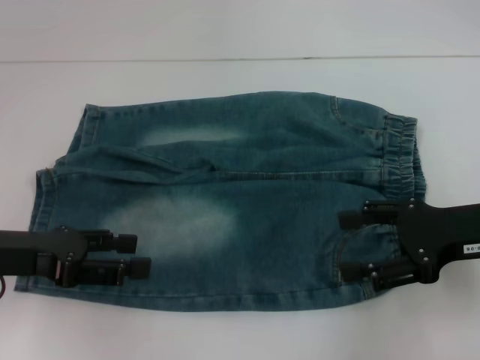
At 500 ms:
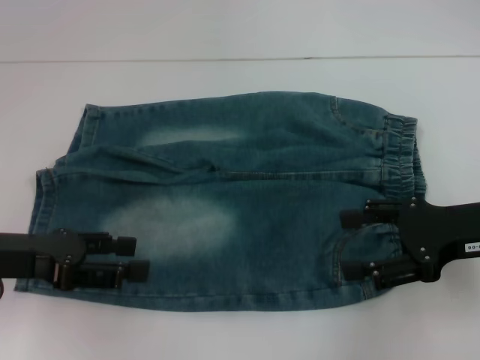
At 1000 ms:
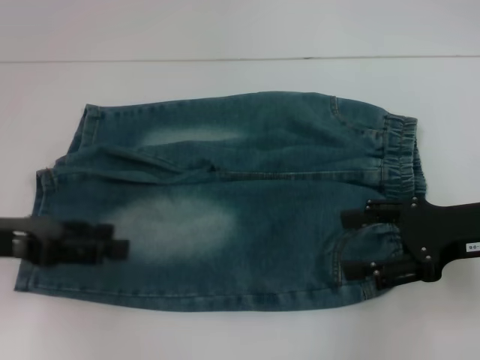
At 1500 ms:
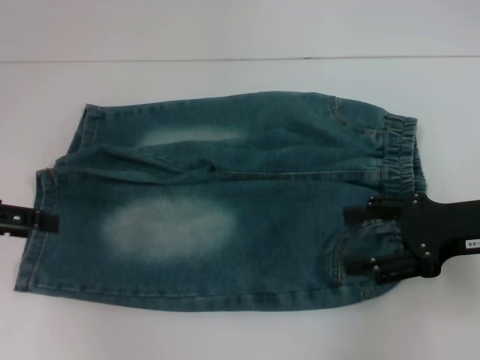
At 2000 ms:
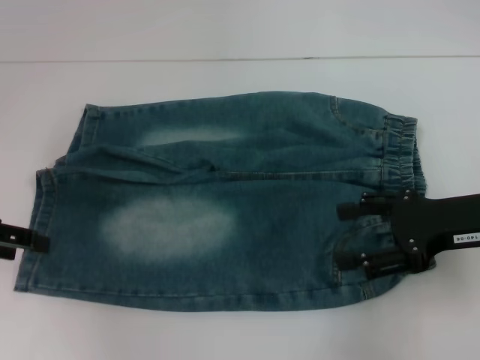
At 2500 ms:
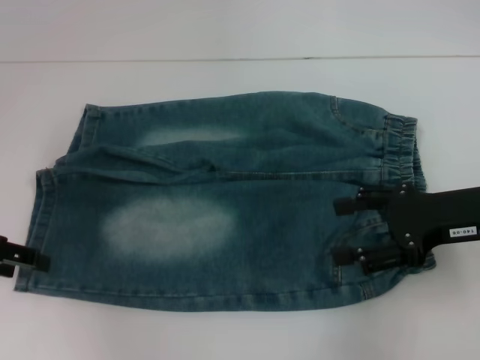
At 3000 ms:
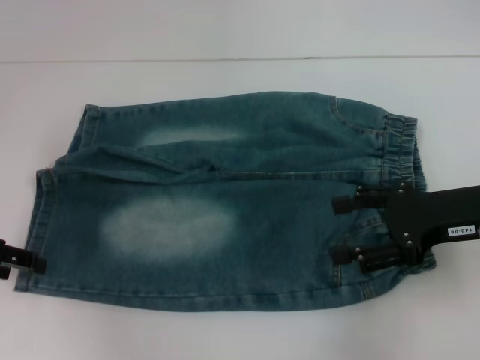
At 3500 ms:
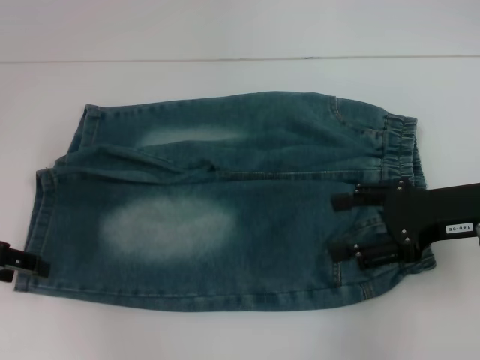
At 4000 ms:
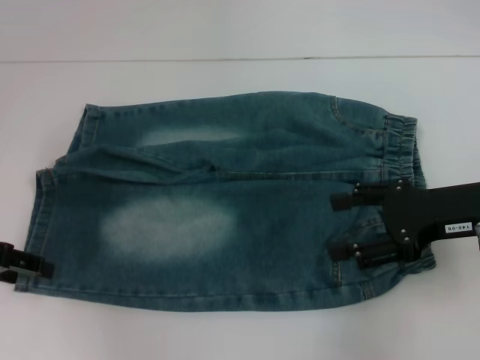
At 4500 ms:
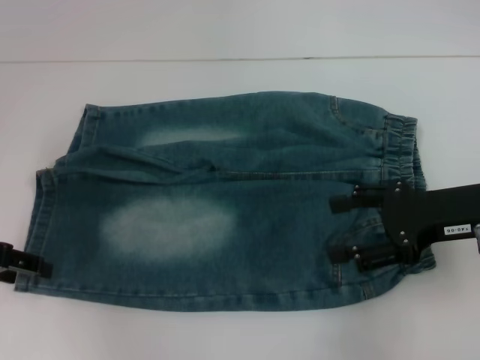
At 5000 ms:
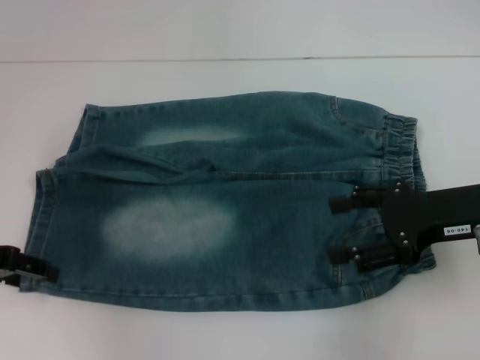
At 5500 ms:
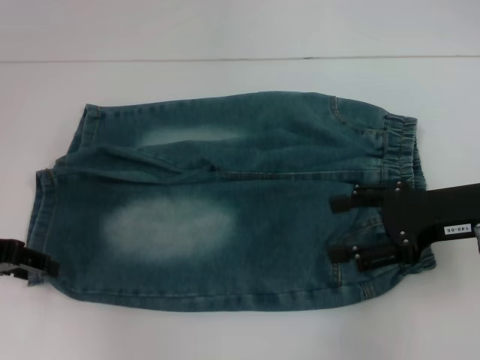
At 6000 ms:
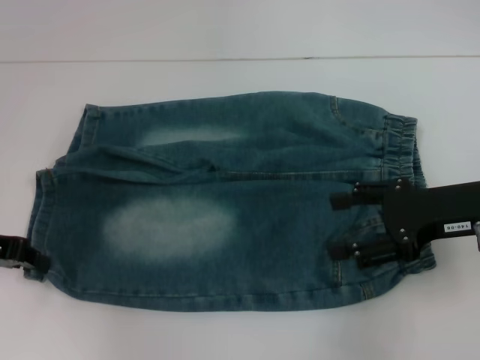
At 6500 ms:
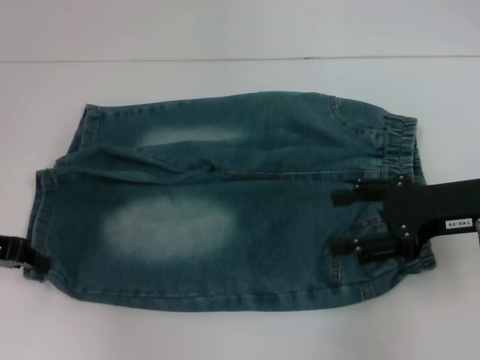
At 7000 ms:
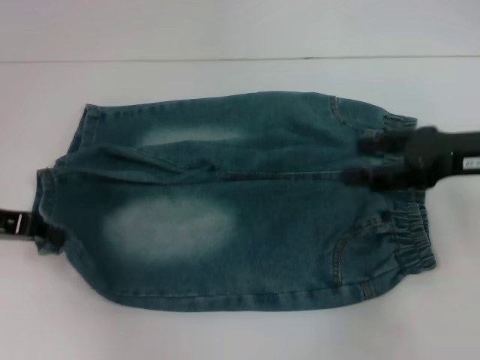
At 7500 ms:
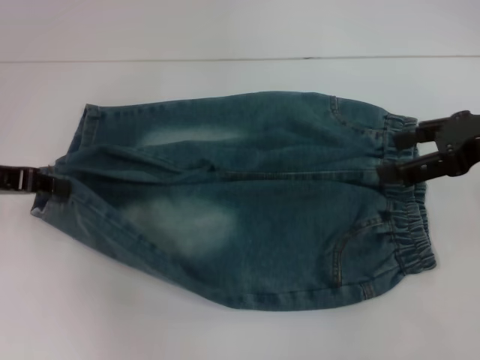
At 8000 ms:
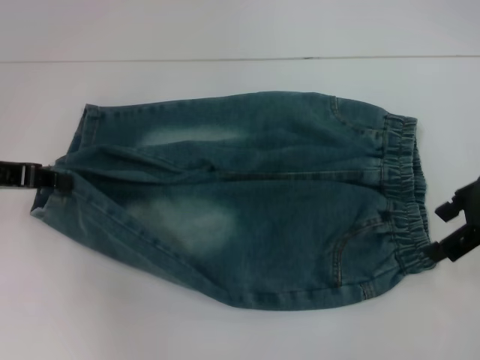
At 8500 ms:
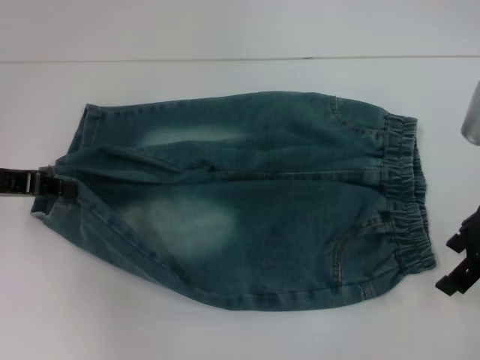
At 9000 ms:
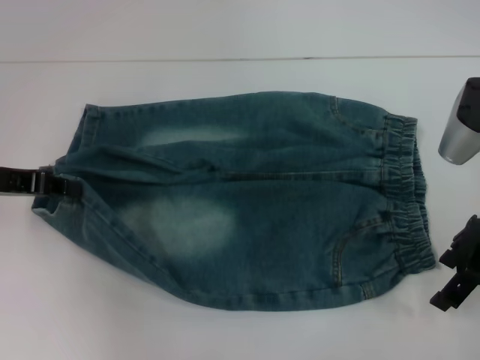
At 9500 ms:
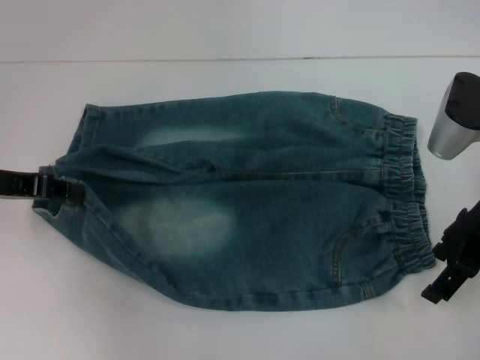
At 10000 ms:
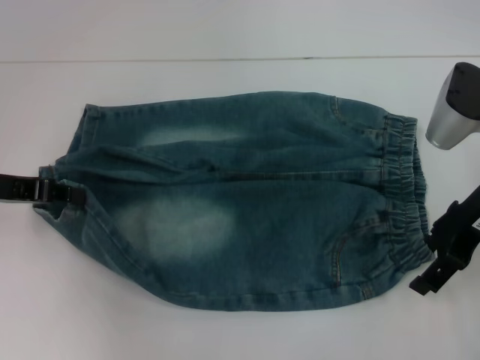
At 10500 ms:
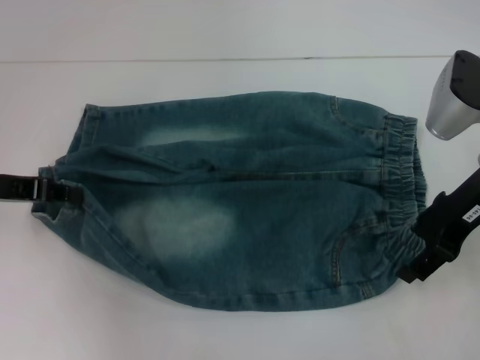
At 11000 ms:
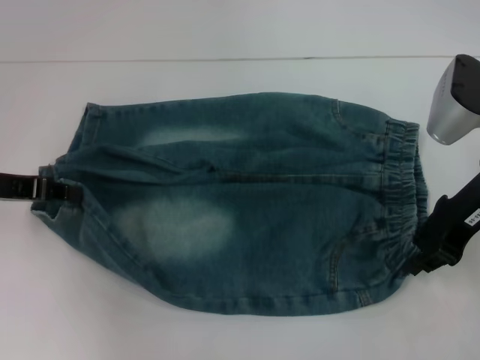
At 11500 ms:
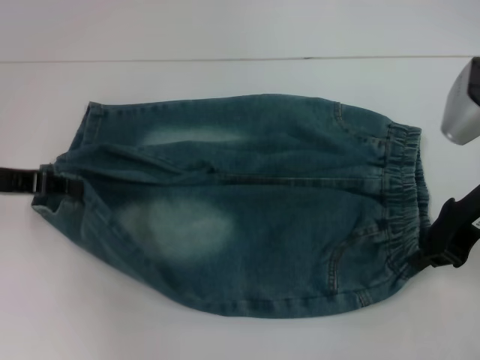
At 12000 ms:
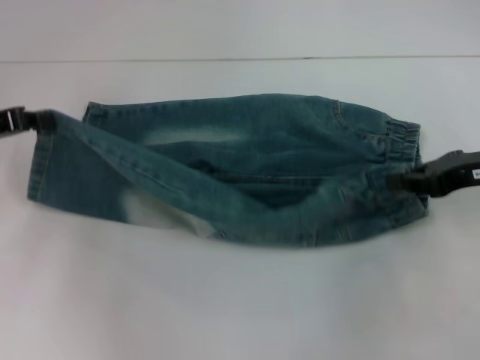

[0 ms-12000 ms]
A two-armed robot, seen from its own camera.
Step, 0 ms to 6500 ms: Grab the lower left pant leg with your left hand.
Step, 7000 ms to 11000 ms: Hold the lower right waistband with your right hand.
0 ms to 2000 ms: The left gripper moves to the left, roughly 5 cm.
2000 ms to 4000 ms: The grippers move only a little.
4000 ms to 6000 ms: The left gripper closes.
6000 ms to 8000 ms: The right gripper moves upward, some 5 cm.
8000 ms to 10000 ms: The right gripper moves about 5 cm.
10000 ms to 12000 ms: The right gripper is displaced to the right by roughly 5 cm, and closes up.

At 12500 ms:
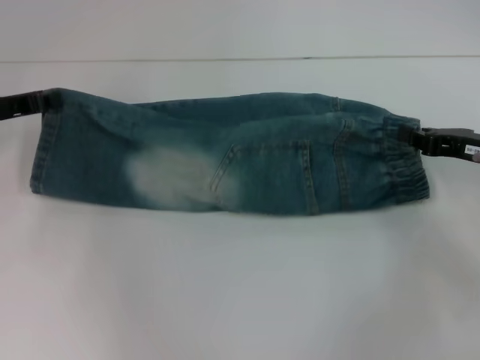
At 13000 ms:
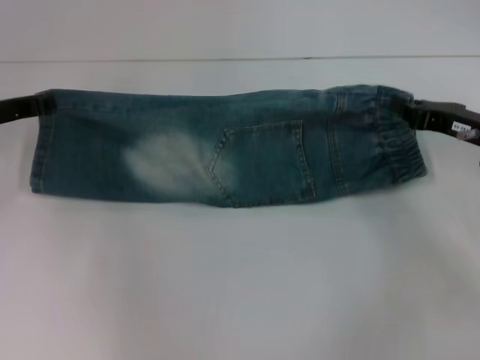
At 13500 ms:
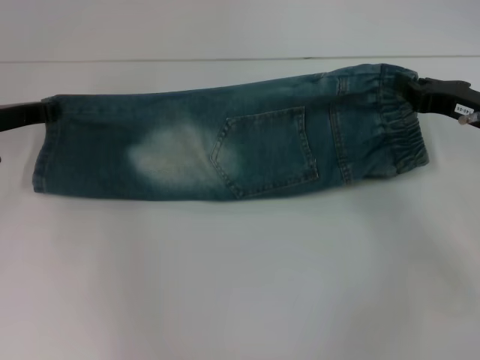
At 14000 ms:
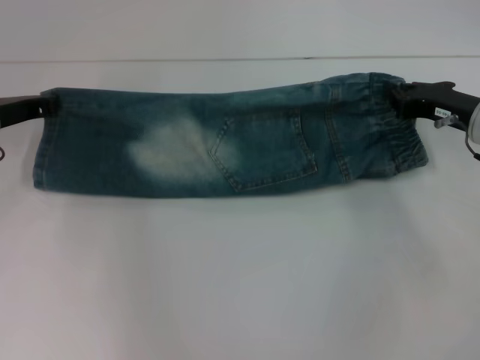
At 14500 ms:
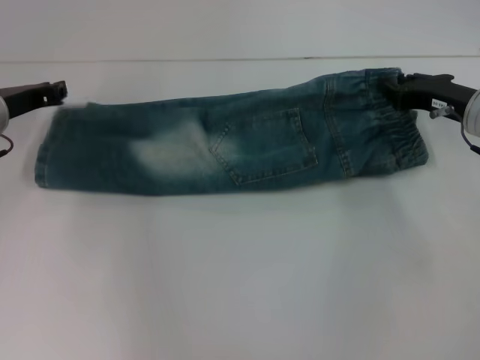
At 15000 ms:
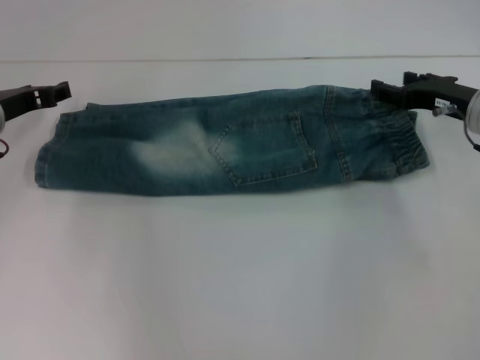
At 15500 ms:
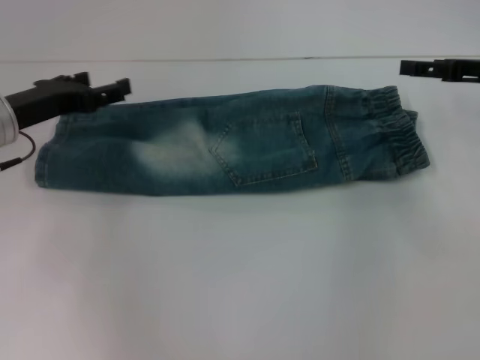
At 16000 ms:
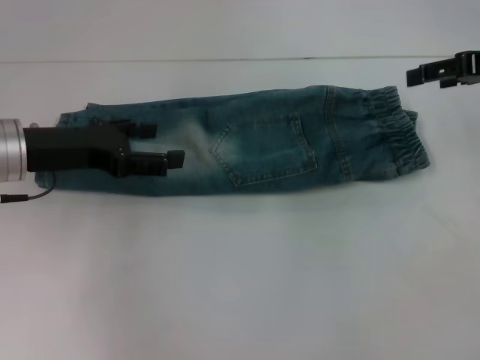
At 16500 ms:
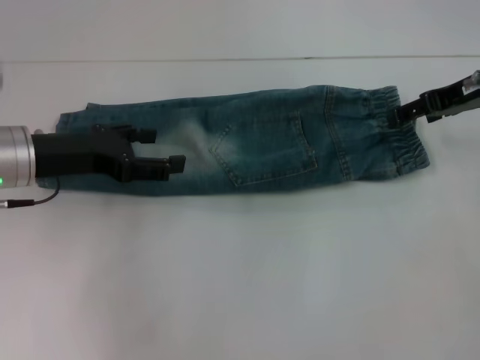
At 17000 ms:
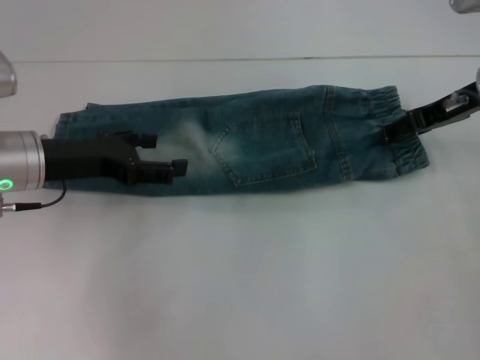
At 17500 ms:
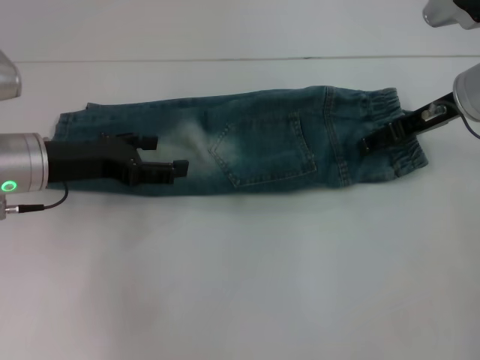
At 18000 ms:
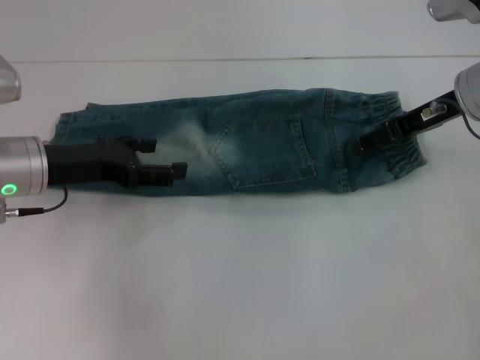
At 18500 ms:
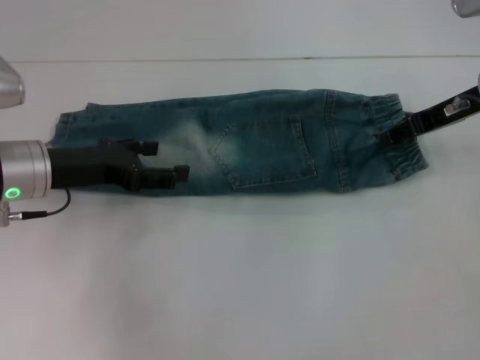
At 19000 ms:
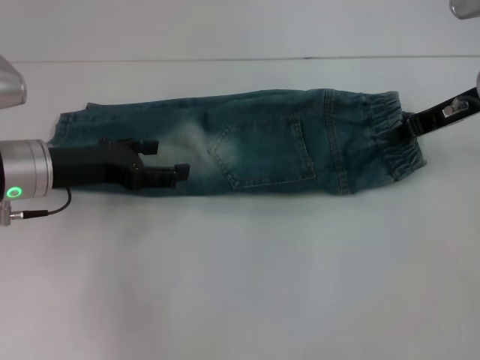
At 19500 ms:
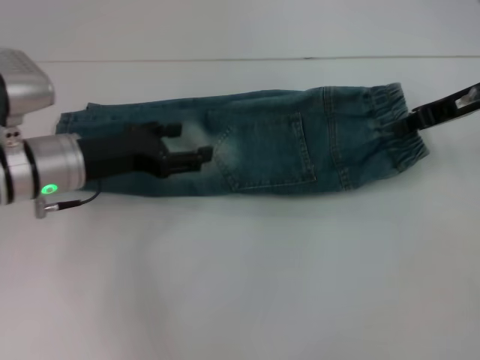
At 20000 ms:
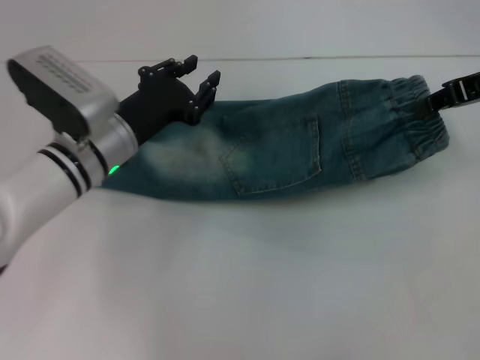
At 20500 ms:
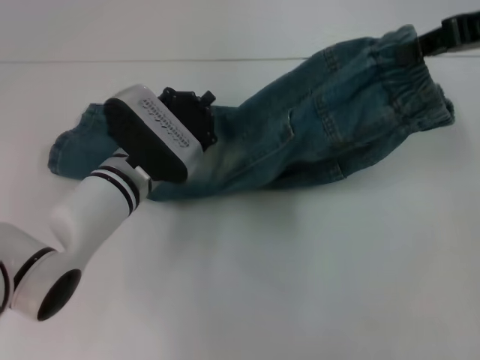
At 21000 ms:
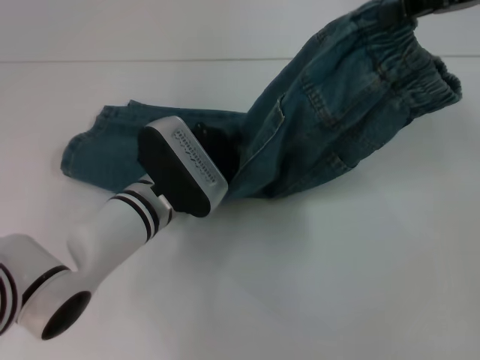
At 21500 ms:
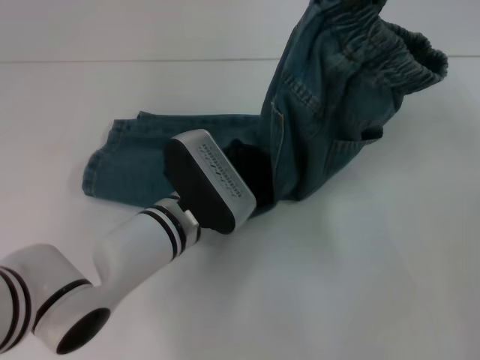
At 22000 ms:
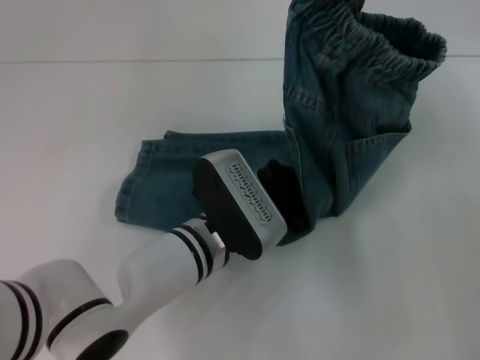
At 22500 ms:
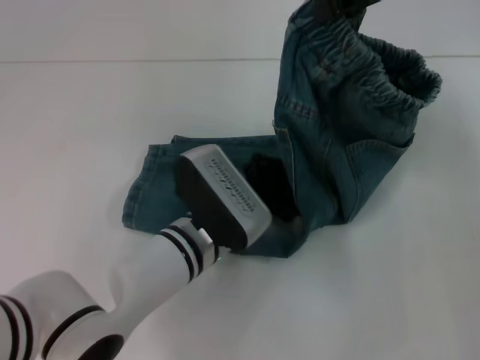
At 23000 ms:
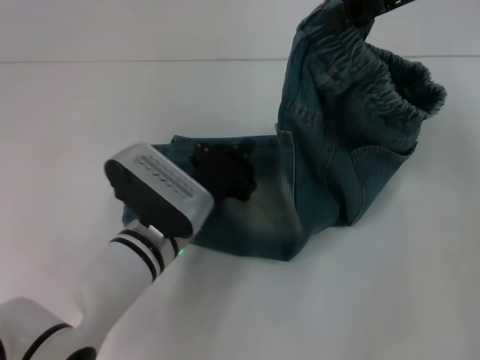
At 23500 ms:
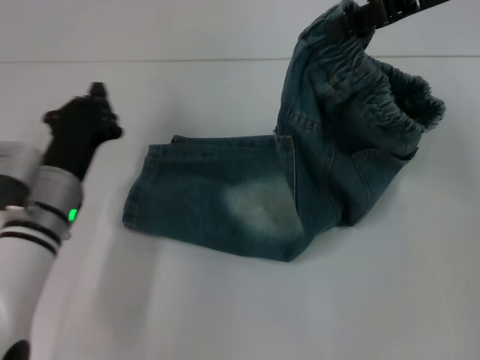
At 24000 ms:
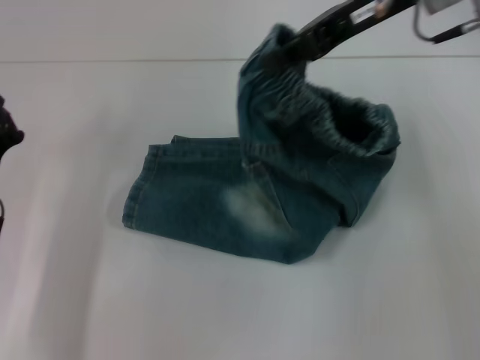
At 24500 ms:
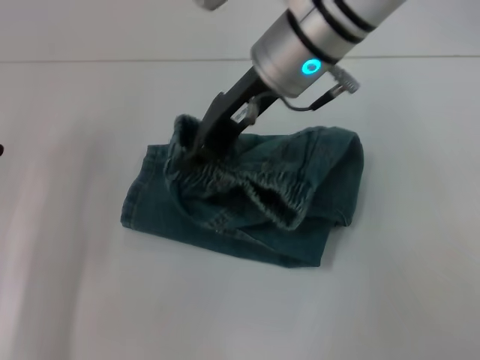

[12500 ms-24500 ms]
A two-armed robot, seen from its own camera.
Step, 12500 ms to 14500 ms: Fold upward with your left hand.
Step, 15000 ms to 19000 ms: Grab the waistband with your right hand.
Step, 19500 ms to 22000 ms: Press the middle of the pants with your left hand.
12500 ms to 14500 ms: The right gripper shifts by roughly 5 cm.
14500 ms to 16500 ms: The left gripper goes about 5 cm backward, and opens its fingers; the right gripper moves upward, about 10 cm, and opens.
16500 ms to 18500 ms: The grippers stay close to where they were, moving slightly.
18500 ms to 20500 ms: The right gripper shifts roughly 10 cm upward, and closes up. The left gripper moves to the right and downward, some 15 cm, and closes.
20500 ms to 22500 ms: The left gripper moves to the right and backward, roughly 10 cm. Meanwhile the right gripper heads to the left, covering some 10 cm.
22500 ms to 24500 ms: The right gripper heads to the left and downward, covering some 20 cm, while the left gripper travels to the left by roughly 25 cm.

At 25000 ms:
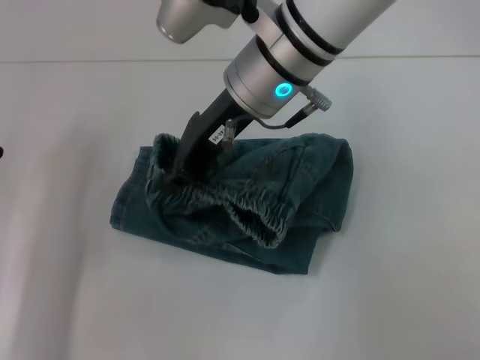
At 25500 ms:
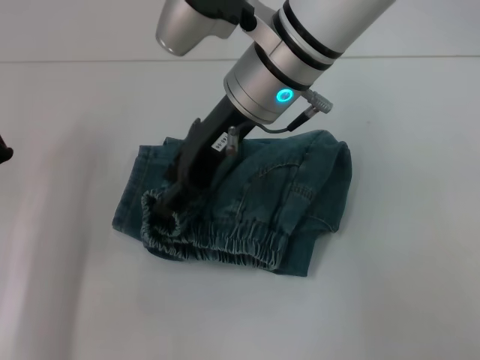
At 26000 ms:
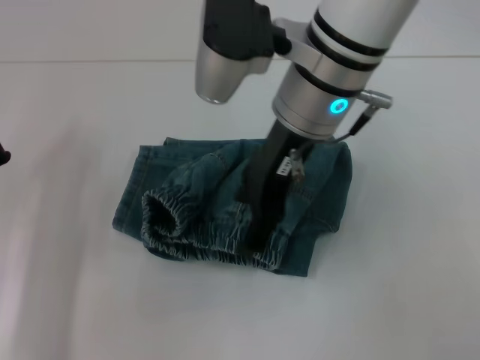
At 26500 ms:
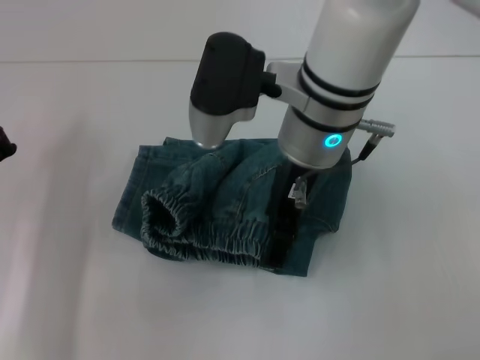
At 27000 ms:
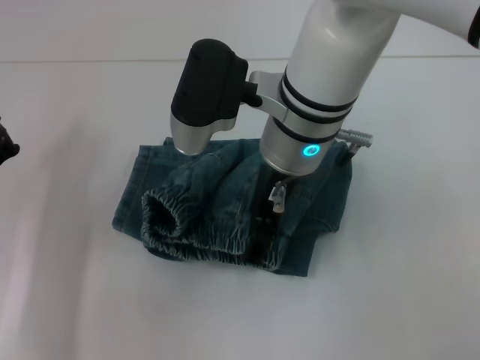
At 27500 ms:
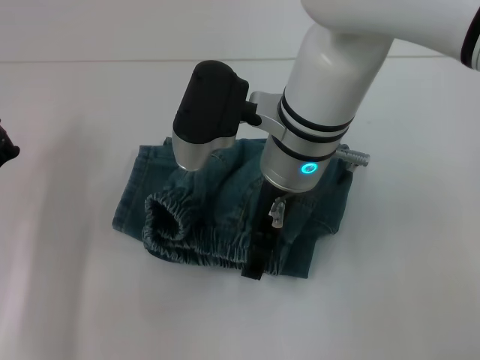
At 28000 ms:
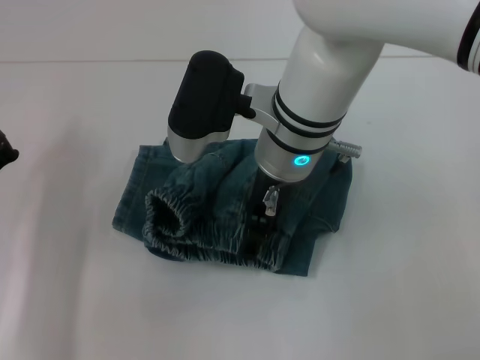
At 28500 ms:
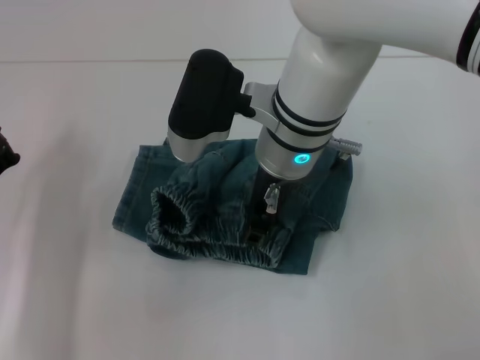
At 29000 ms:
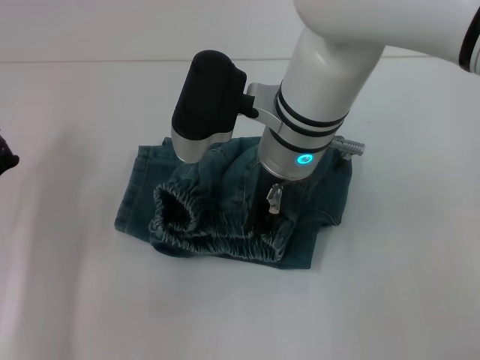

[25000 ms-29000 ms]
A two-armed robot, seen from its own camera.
25000 ms to 27000 ms: The right gripper opens its fingers.
27000 ms to 29000 ms: The right gripper closes up.
